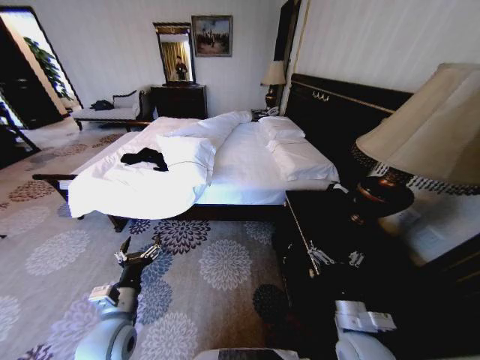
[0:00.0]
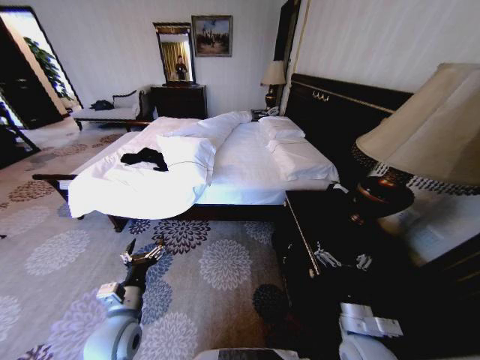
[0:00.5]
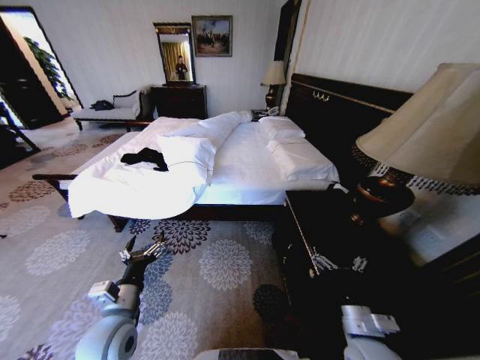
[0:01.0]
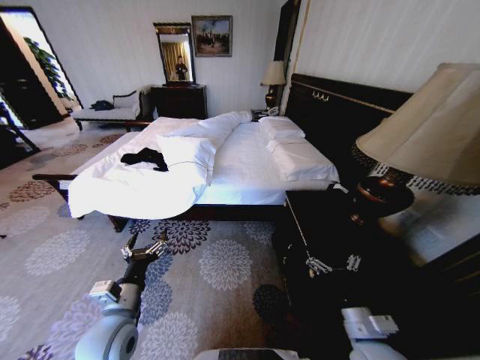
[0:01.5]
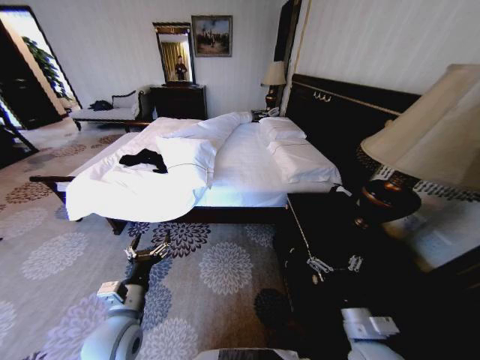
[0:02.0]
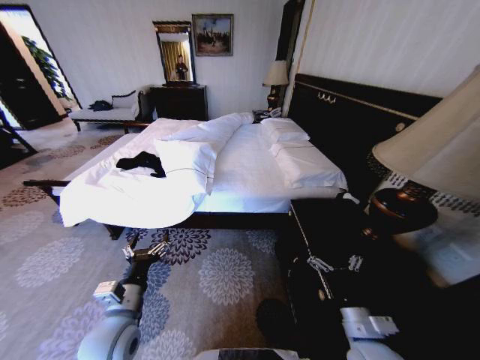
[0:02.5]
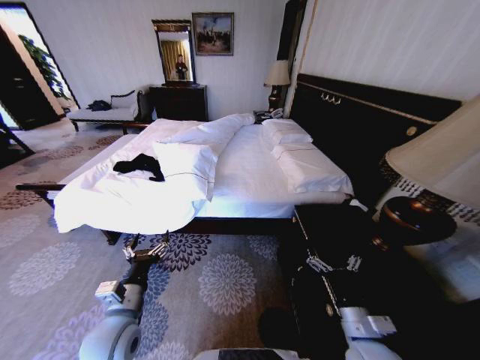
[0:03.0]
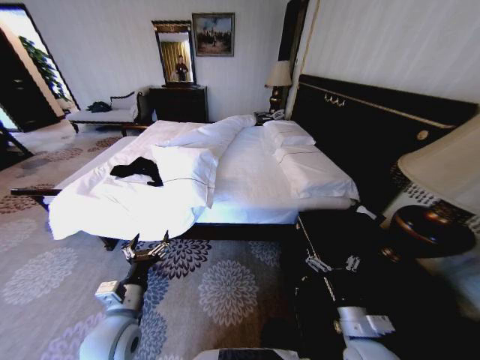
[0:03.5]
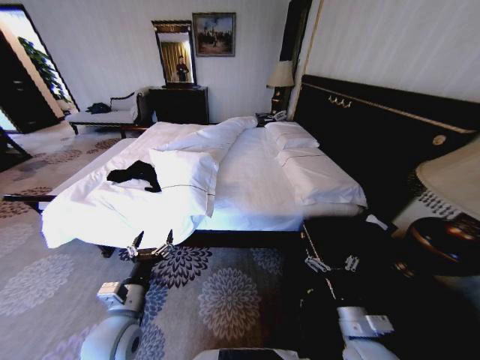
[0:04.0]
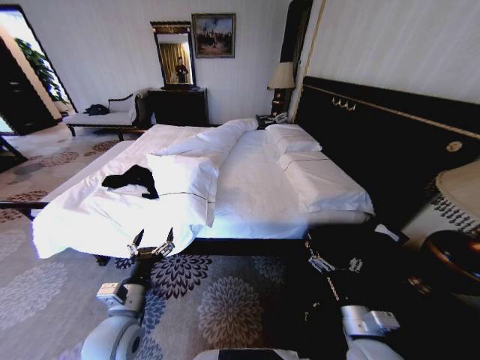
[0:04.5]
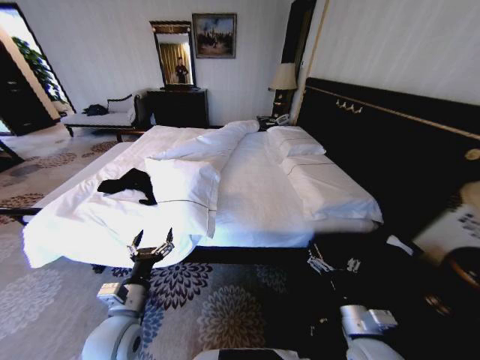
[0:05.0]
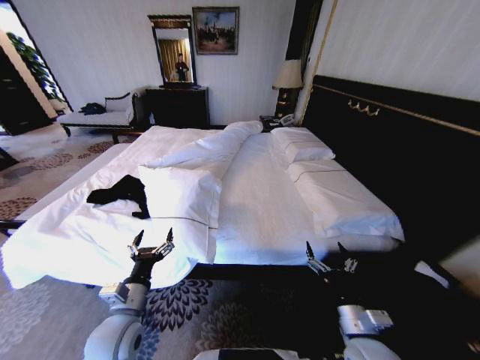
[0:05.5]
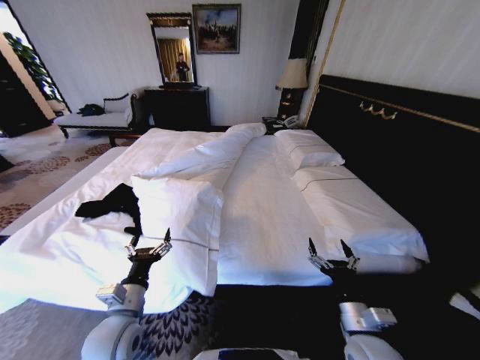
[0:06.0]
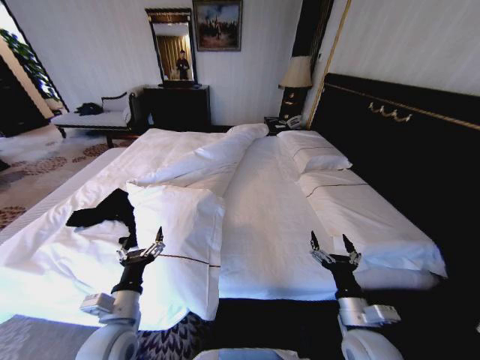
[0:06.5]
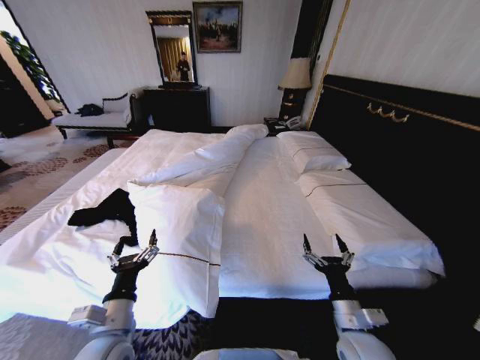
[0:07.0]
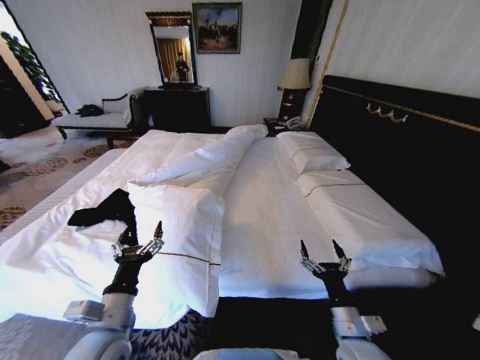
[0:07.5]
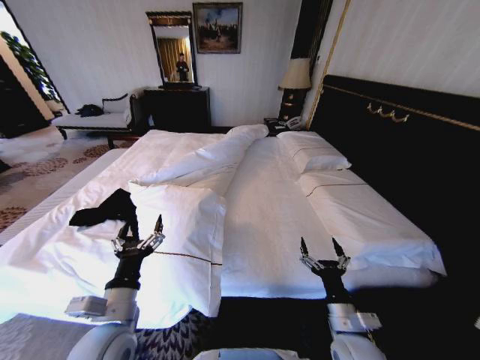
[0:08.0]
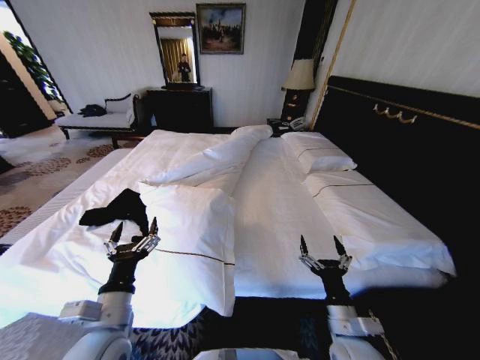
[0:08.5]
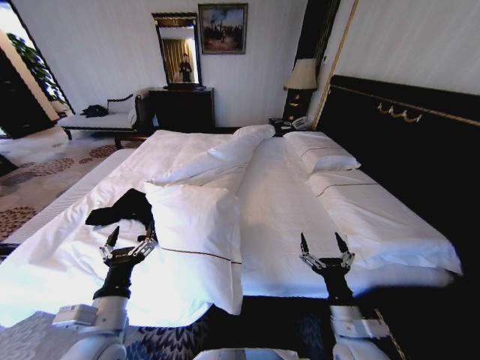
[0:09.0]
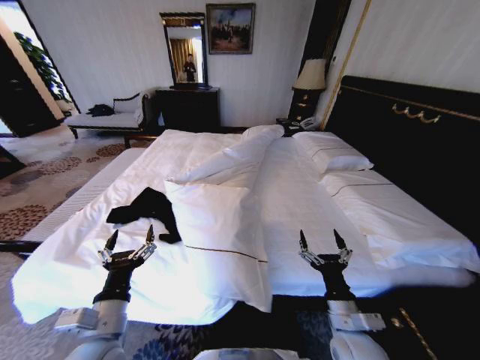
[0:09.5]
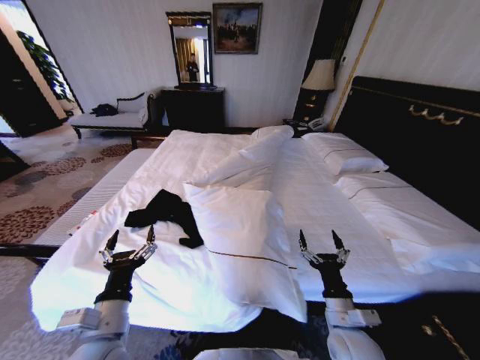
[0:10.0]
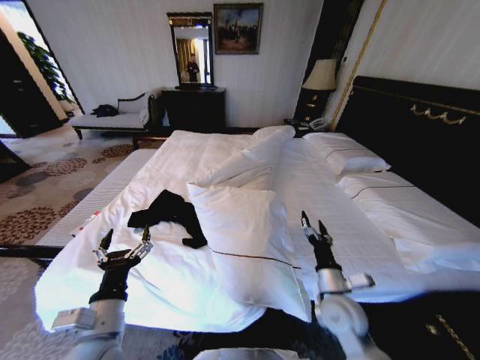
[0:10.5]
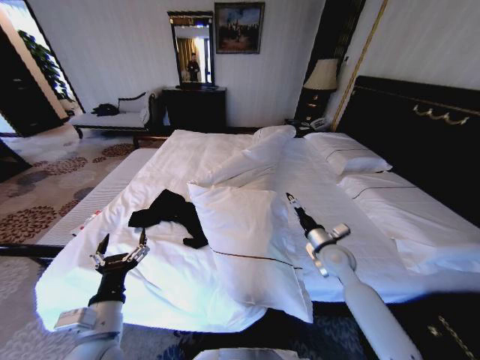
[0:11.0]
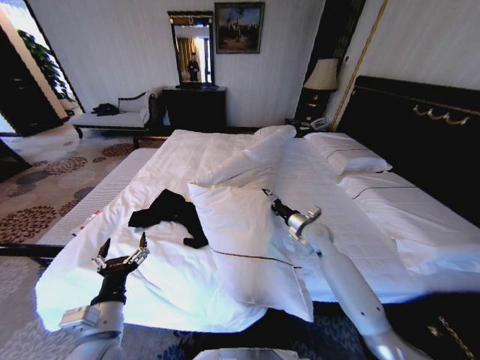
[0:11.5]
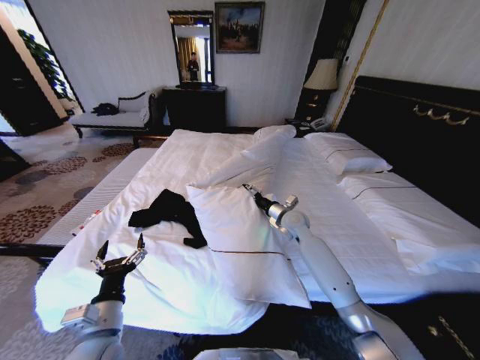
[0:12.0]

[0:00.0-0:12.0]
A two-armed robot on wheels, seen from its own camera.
Task of the whole recording: Fold the clothes on the bed.
0:06.0 to 0:08.0: The left gripper shifts by about 5 cm.
0:10.0 to 0:12.0: The right gripper heads forward, covering approximately 30 cm.

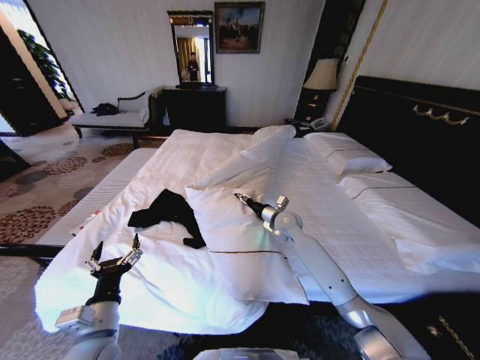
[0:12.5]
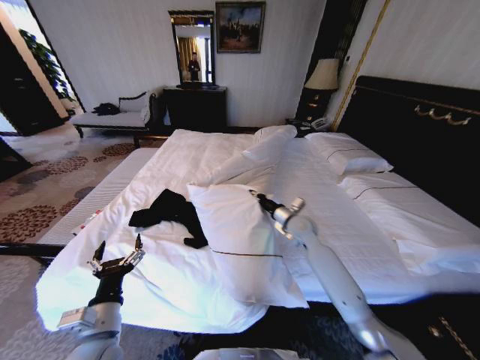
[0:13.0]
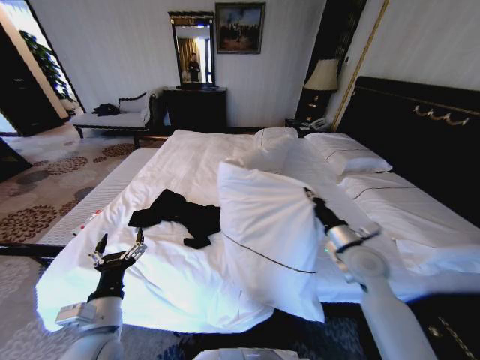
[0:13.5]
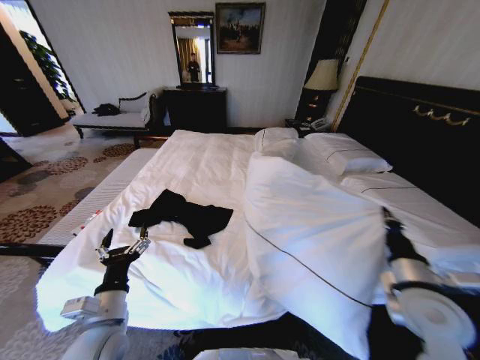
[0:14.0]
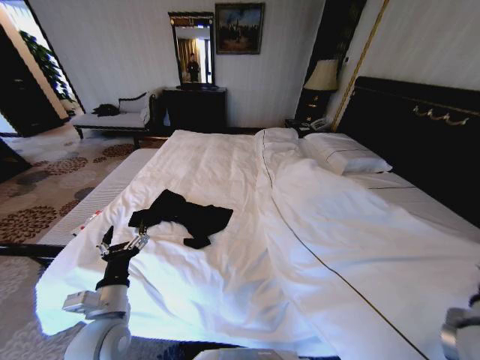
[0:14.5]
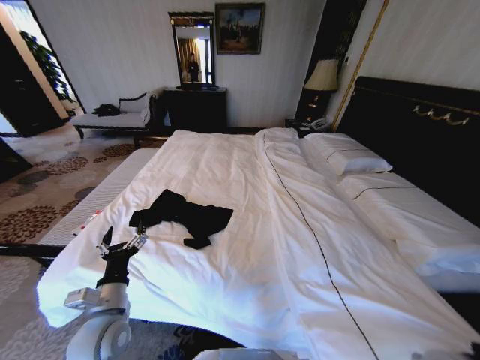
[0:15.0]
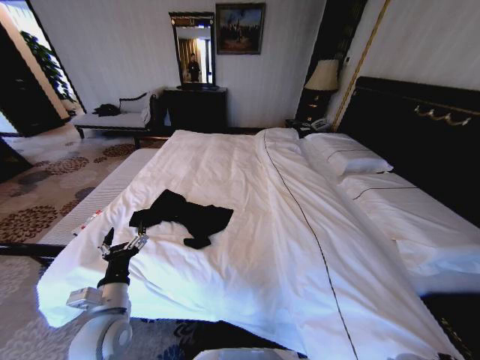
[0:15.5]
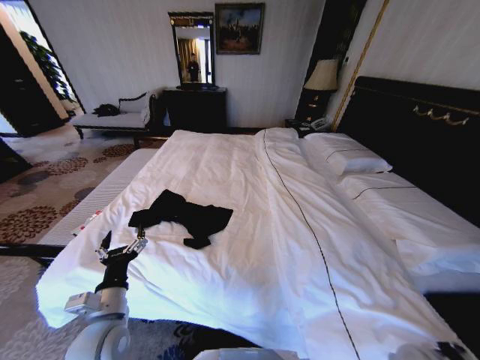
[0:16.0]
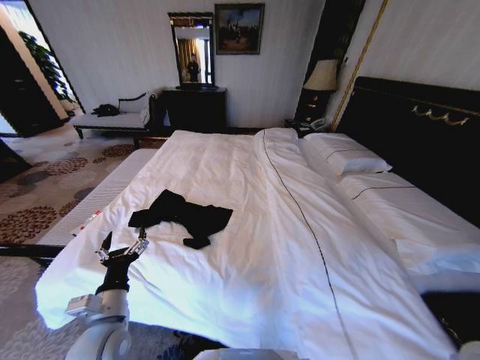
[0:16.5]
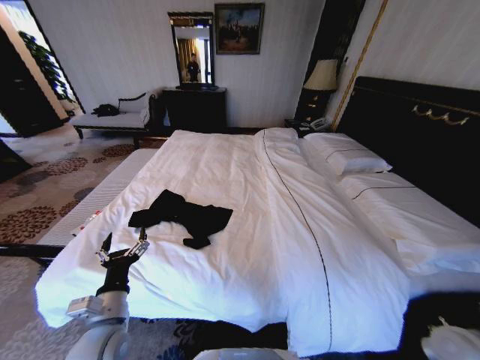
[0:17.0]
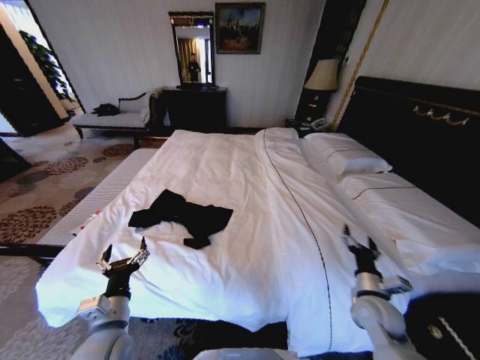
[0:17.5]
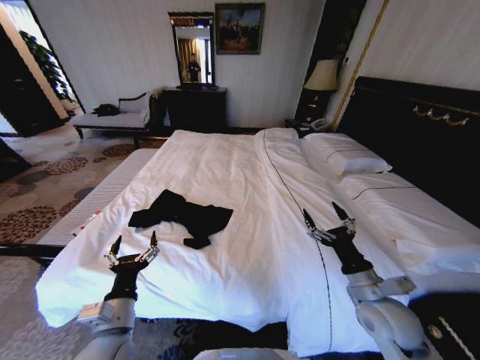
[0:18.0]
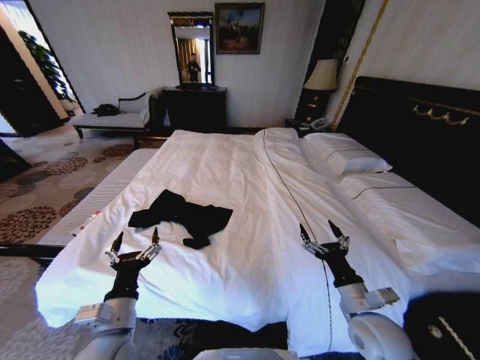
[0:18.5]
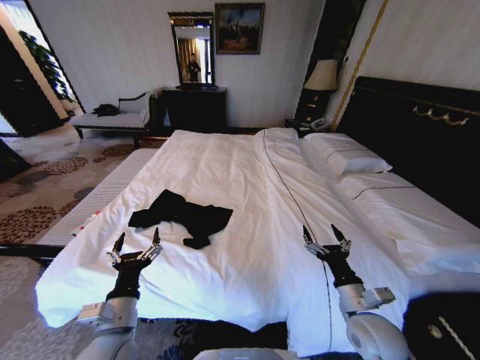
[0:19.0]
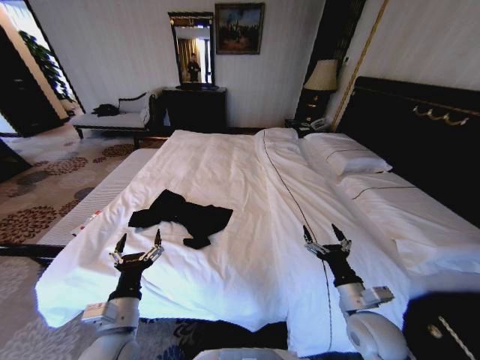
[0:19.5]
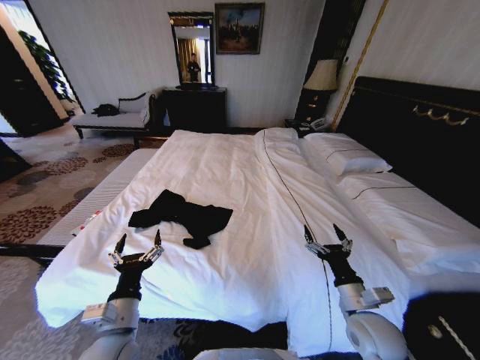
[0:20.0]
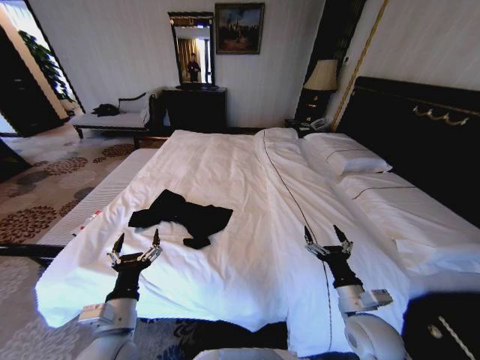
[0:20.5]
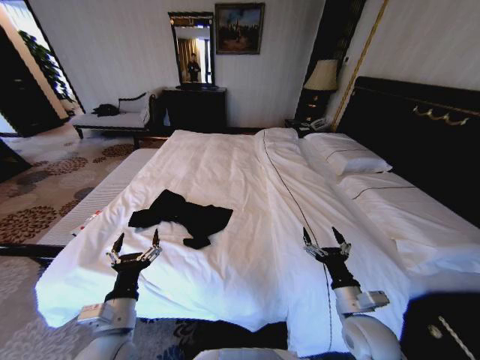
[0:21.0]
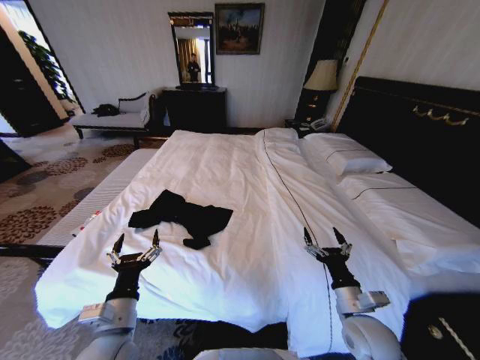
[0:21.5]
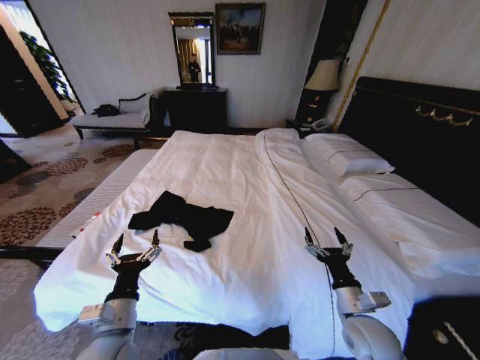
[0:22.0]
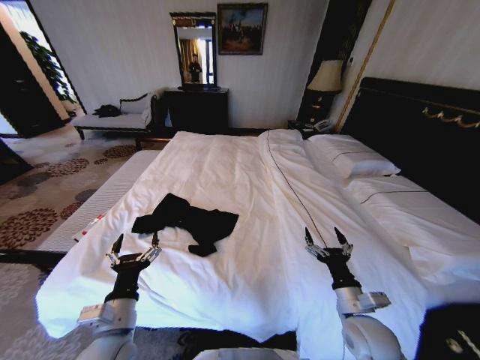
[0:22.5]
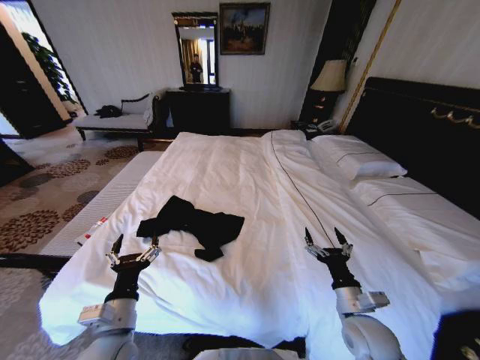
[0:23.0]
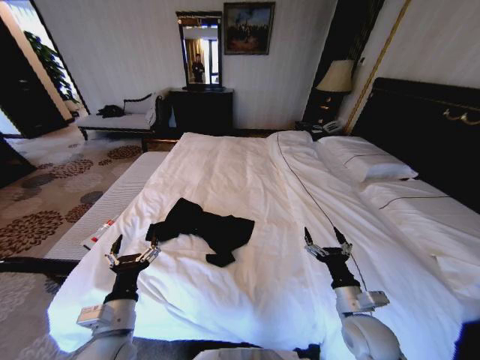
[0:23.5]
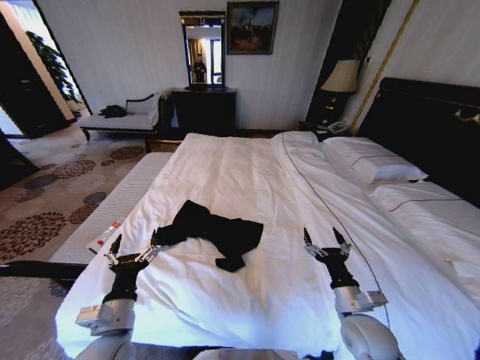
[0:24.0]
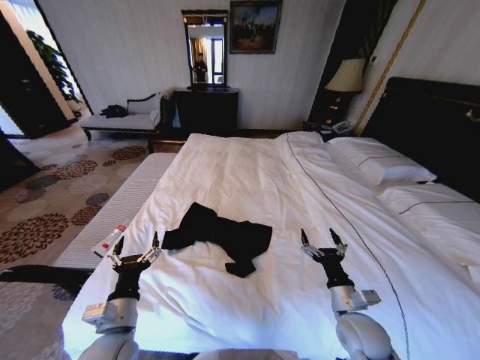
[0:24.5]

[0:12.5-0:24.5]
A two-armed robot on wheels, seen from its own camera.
Task of the whole recording: Fold the clothes on the bed.
0:12.5 to 0:14.5: The right gripper heads backward and to the right, covering roughly 40 cm, and closes its fingers.
0:14.5 to 0:16.5: The right gripper heads to the right, covering about 5 cm, goes downward and returns, some 25 cm each way, and opens up.
0:16.5 to 0:18.5: The right gripper is displaced to the left by roughly 15 cm.
0:18.5 to 0:20.5: The grippers make only small movements.
0:20.5 to 0:22.5: Both grippers stay put.

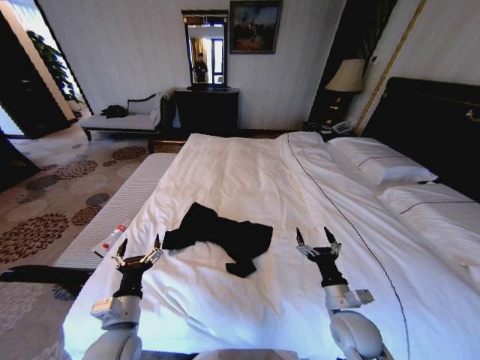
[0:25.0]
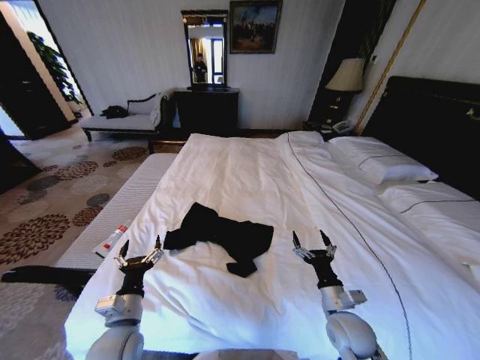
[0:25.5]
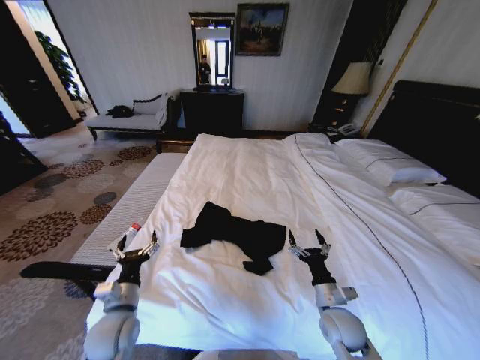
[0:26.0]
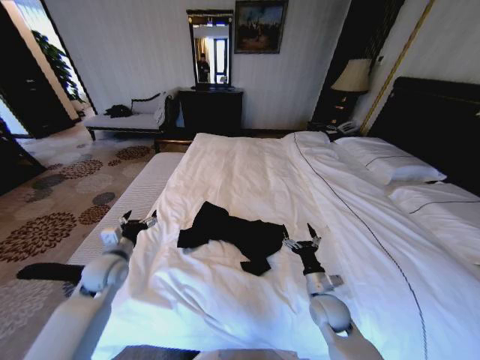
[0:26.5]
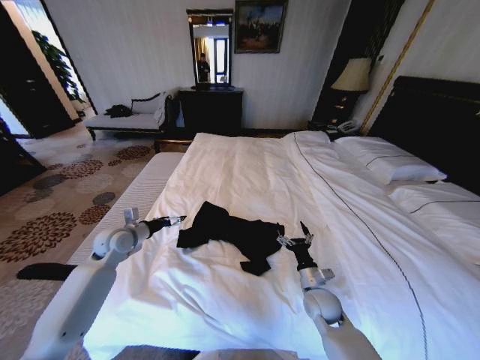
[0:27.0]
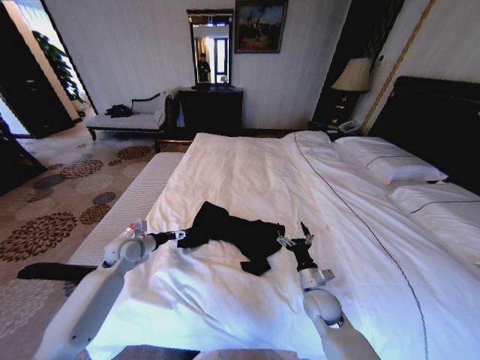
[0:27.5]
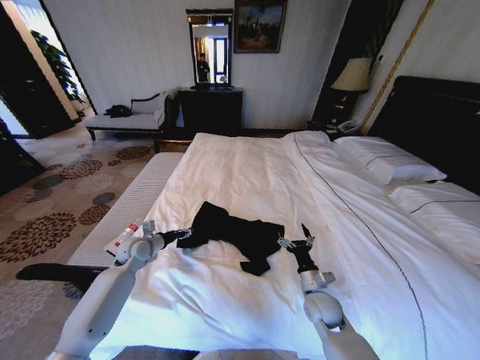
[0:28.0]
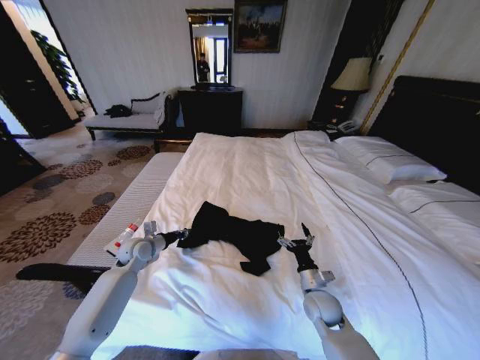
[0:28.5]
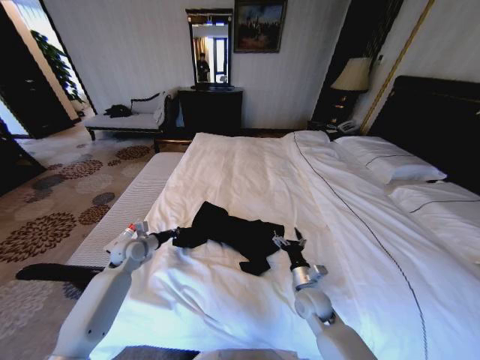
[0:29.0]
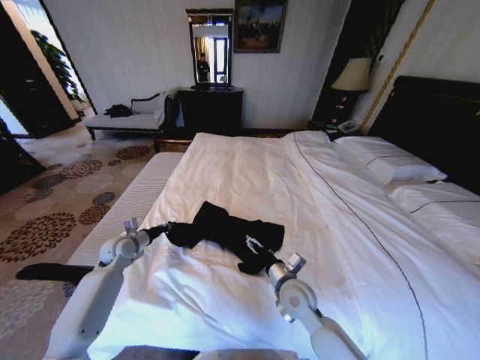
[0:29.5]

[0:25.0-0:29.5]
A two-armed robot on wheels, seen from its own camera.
Task of the whole recording: Fold the clothes on the bed.
0:25.0 to 0:27.0: The right gripper goes approximately 10 cm forward and downward. The left gripper is displaced forward and to the left by roughly 25 cm.
0:27.0 to 0:29.5: The right gripper goes roughly 15 cm to the left and upward; the left gripper travels downward by roughly 5 cm, and closes its fingers.
